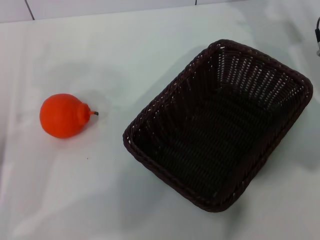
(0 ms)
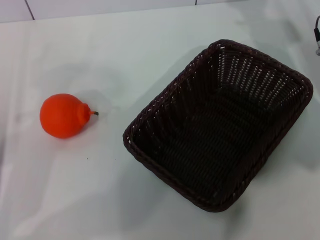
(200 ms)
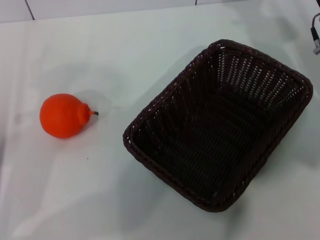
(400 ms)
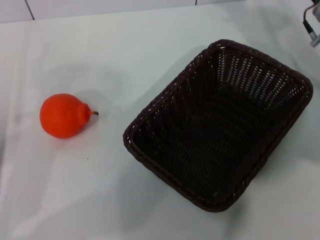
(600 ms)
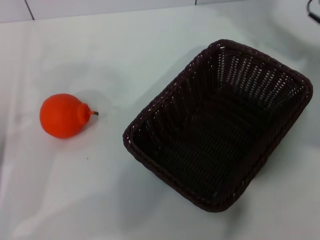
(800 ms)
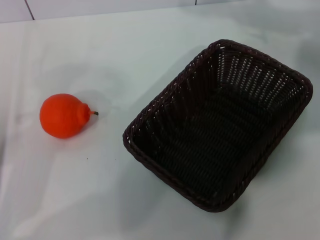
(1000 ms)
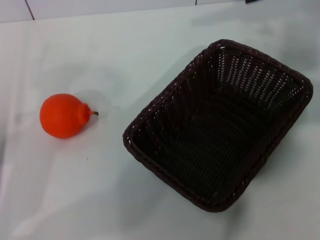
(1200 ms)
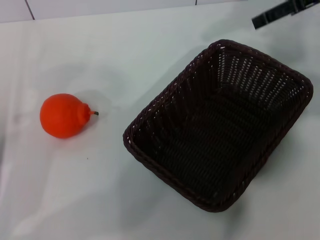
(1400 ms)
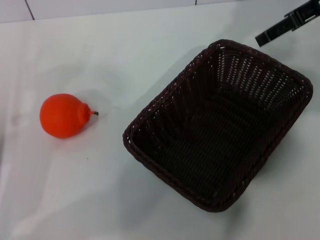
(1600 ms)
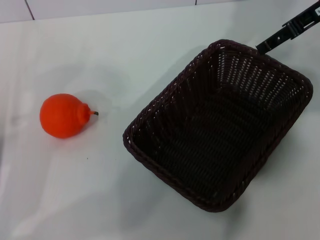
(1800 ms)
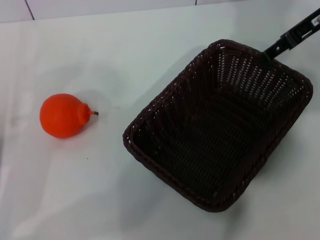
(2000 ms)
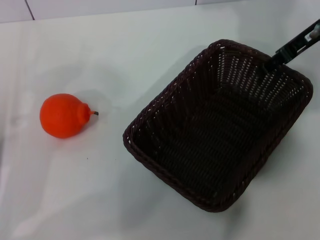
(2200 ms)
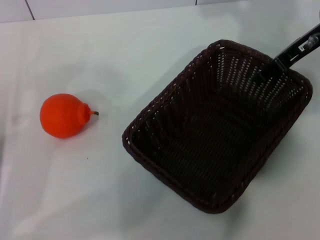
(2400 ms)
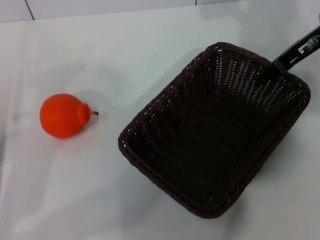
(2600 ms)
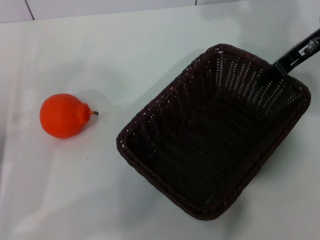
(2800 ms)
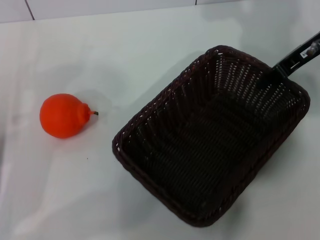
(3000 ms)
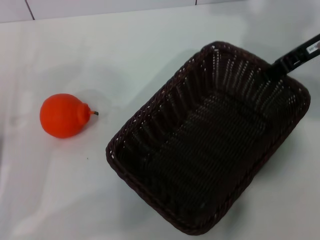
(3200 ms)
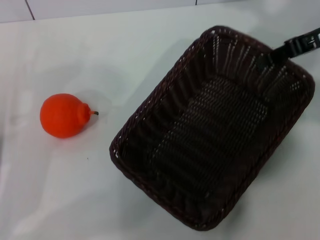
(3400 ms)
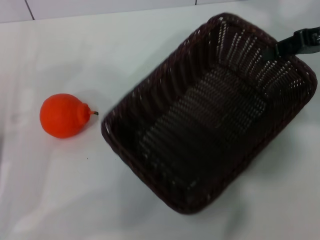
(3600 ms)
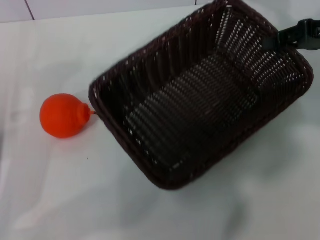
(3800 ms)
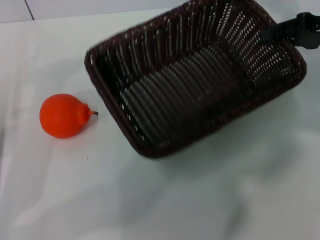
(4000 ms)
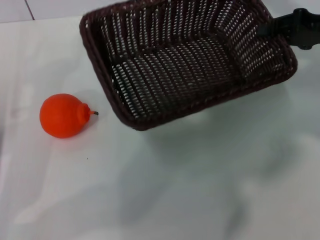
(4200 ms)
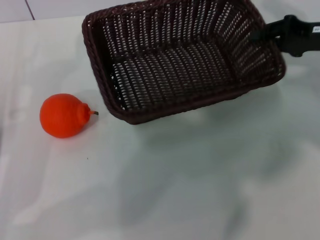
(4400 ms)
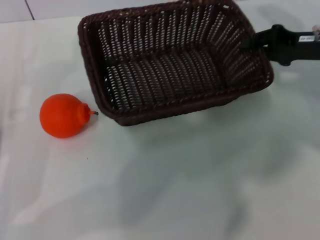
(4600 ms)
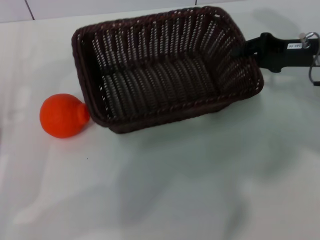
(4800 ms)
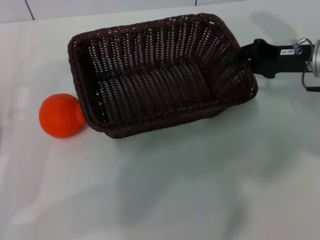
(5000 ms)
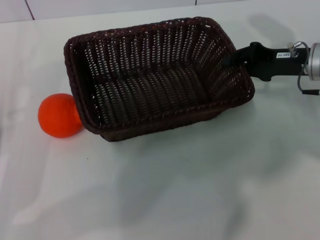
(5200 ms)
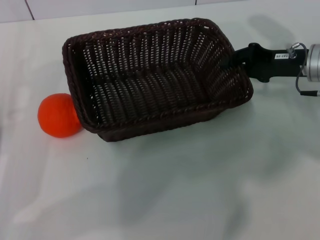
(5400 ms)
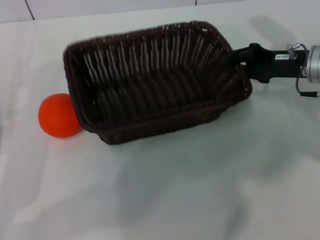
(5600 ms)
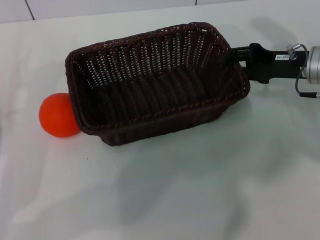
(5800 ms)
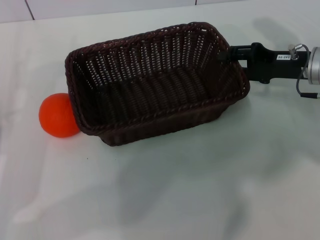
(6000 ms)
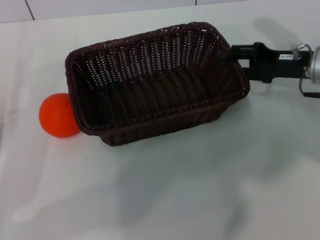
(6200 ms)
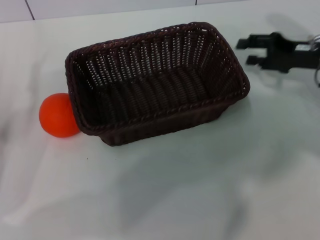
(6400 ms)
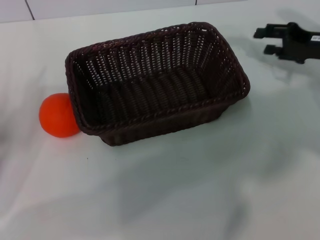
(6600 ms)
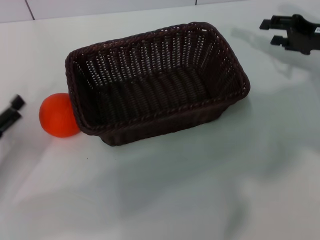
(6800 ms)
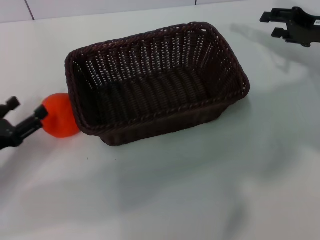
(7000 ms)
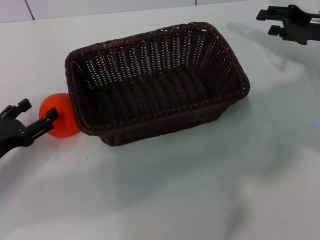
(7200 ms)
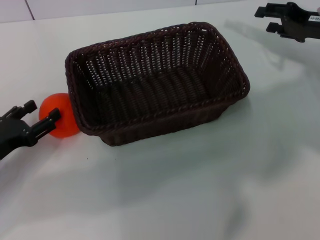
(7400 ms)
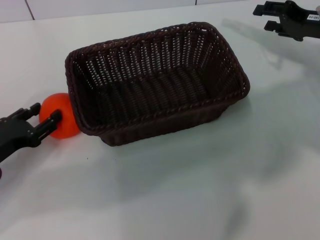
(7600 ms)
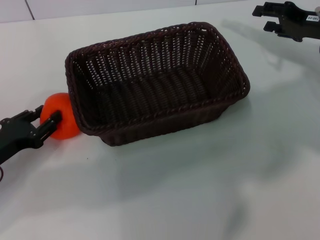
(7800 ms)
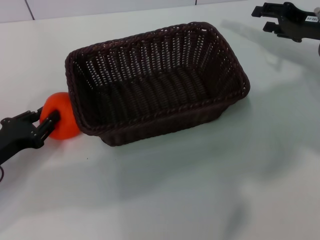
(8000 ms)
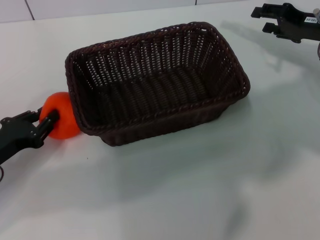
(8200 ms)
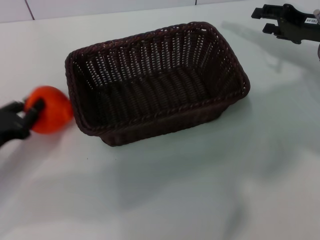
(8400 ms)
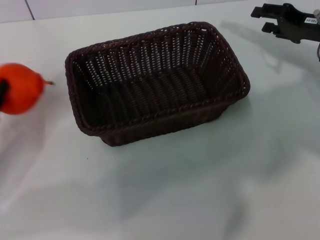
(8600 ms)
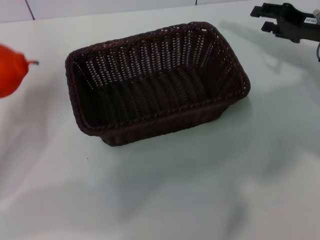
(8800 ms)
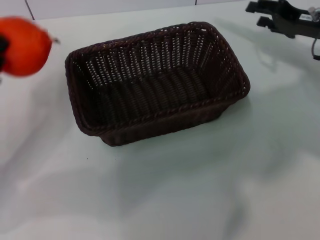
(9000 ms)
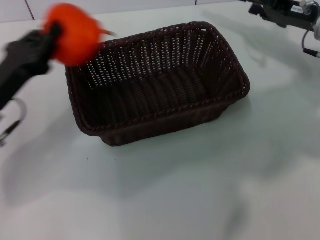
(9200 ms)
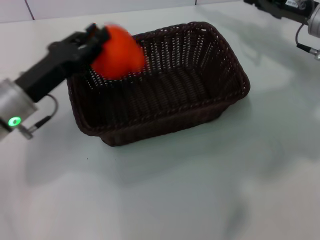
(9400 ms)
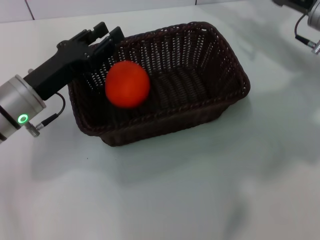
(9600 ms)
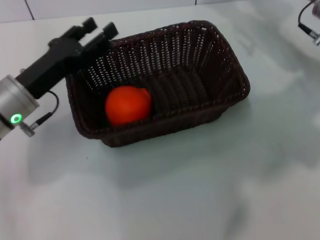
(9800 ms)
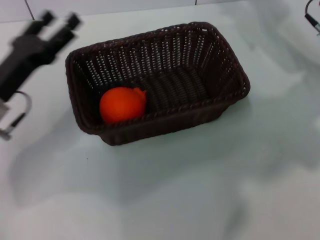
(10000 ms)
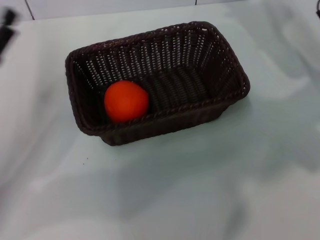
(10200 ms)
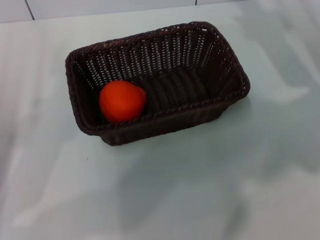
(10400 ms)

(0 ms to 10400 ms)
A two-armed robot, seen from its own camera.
Task of the whole recording: the right gripper pick up the black basket and place it horizontally in the middle of the table, the left gripper pick up the orange and place it into the black basket.
Step, 0 ms - 3000 ms: Pick up the dark basket with the right gripper.
Step, 3200 ms - 6200 ms: Place the dark basket in the center of view with the right gripper.
Step, 6400 ms - 8400 ms: Pick up the orange with the left gripper.
Step, 8600 ms - 9400 ms: Place the orange into the dark basket with the left gripper.
0 ms - 1400 ms: The right gripper shifts some 15 cm upward.
1400 ms - 3000 ms: The right gripper shifts approximately 5 cm downward, and closes its fingers.
3000 ms - 4400 ms: The right gripper ends up some 5 cm from where it was.
4400 ms - 6000 ms: The right gripper moves some 5 cm, and opens.
6000 ms - 7400 ms: The right gripper changes place by roughly 5 cm.
7400 ms - 9000 ms: The left gripper heads upward, covering about 5 cm, and closes.
9000 ms - 10400 ms: The left gripper reaches approximately 10 cm to the right, then returns, and opens its fingers.
